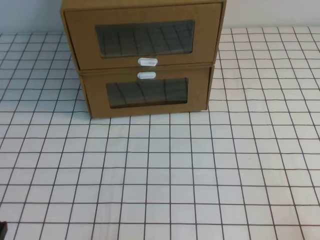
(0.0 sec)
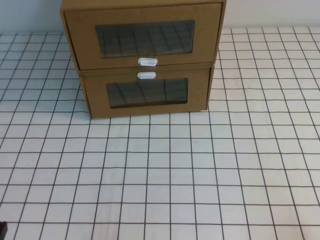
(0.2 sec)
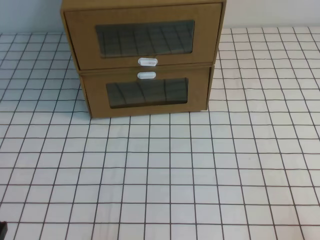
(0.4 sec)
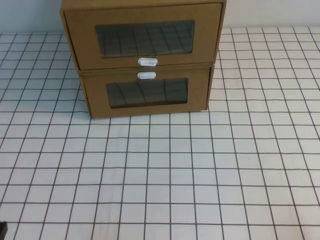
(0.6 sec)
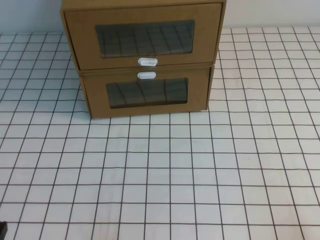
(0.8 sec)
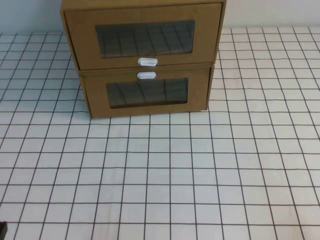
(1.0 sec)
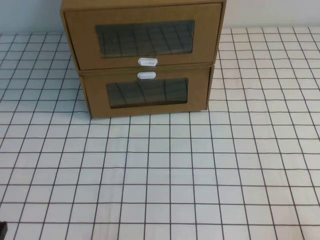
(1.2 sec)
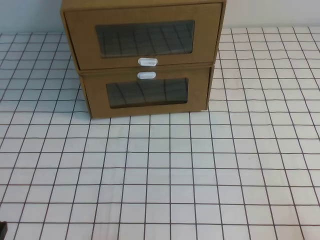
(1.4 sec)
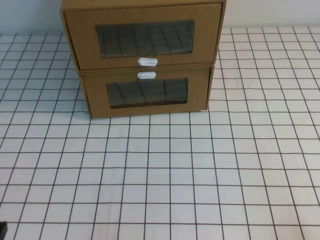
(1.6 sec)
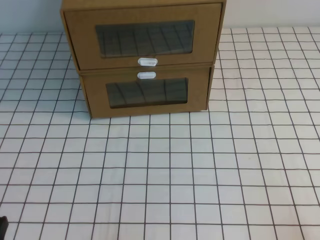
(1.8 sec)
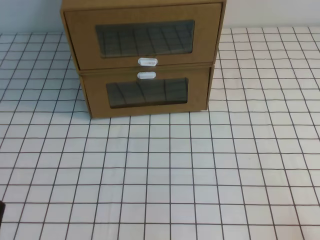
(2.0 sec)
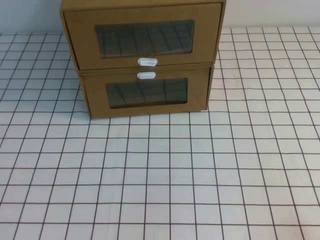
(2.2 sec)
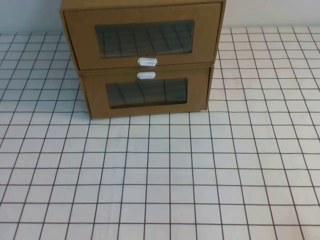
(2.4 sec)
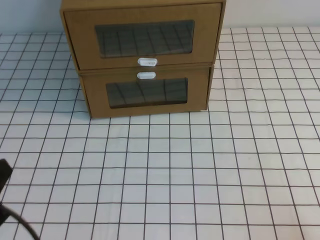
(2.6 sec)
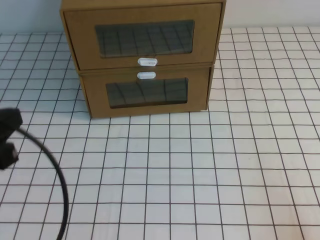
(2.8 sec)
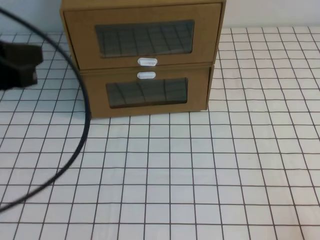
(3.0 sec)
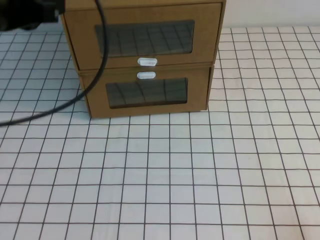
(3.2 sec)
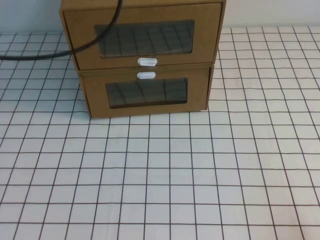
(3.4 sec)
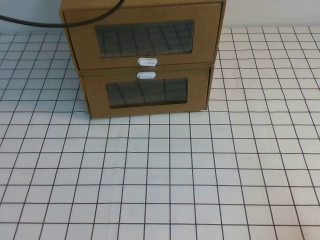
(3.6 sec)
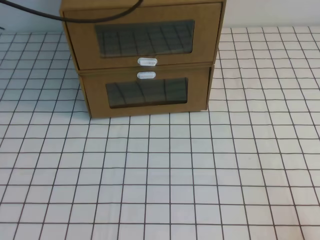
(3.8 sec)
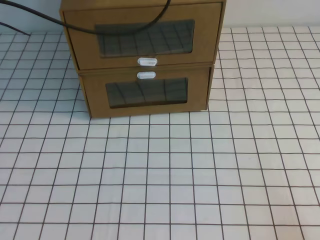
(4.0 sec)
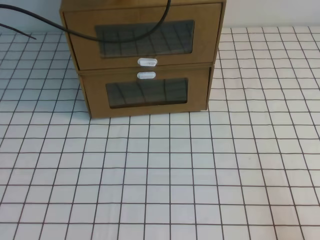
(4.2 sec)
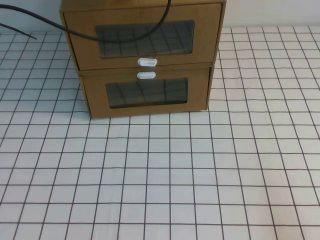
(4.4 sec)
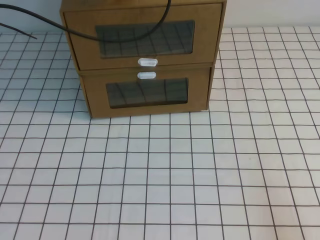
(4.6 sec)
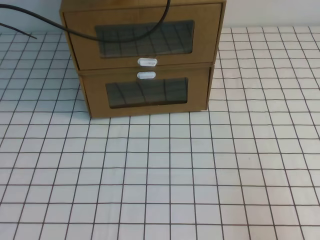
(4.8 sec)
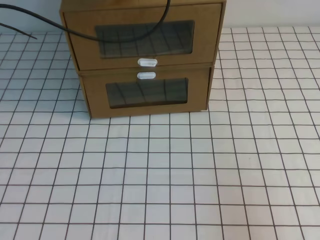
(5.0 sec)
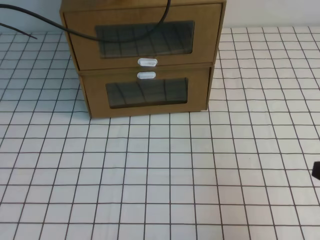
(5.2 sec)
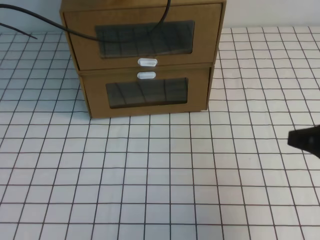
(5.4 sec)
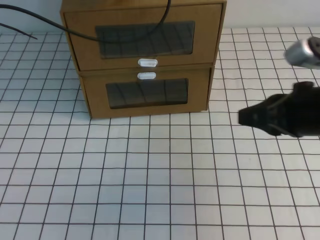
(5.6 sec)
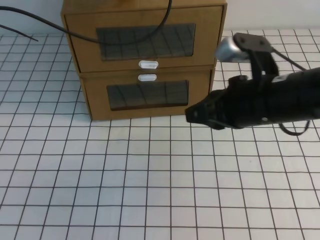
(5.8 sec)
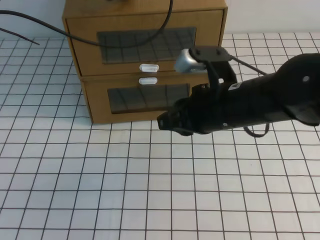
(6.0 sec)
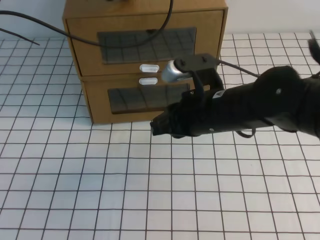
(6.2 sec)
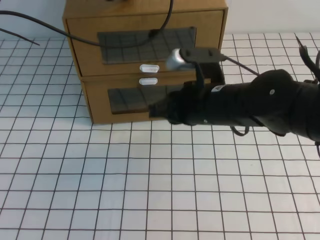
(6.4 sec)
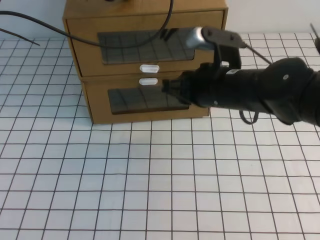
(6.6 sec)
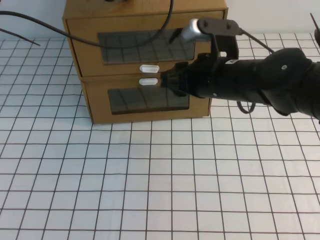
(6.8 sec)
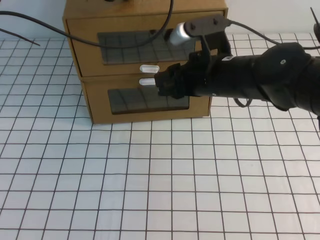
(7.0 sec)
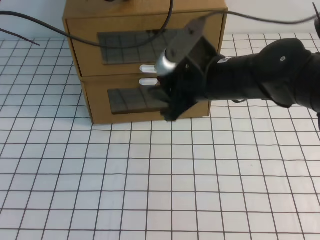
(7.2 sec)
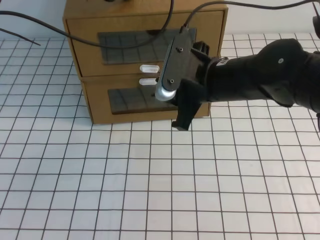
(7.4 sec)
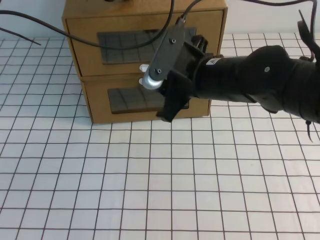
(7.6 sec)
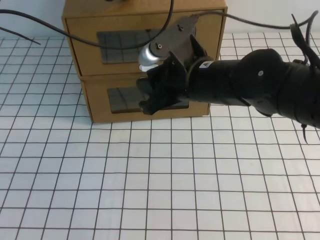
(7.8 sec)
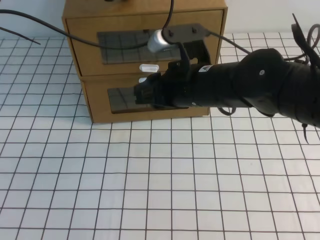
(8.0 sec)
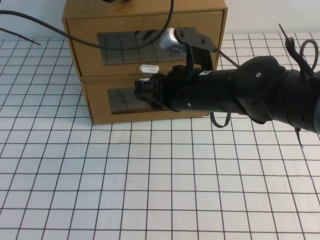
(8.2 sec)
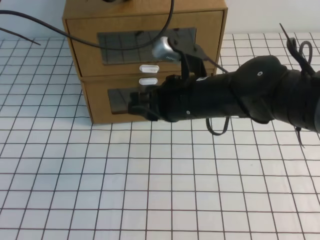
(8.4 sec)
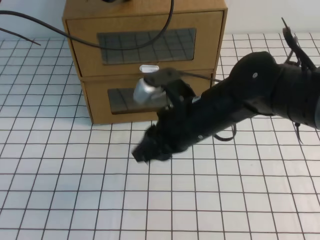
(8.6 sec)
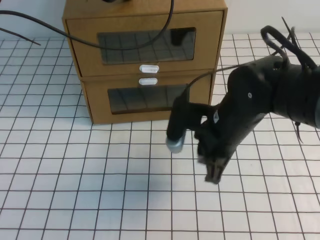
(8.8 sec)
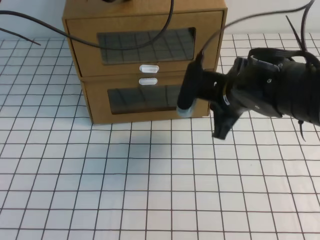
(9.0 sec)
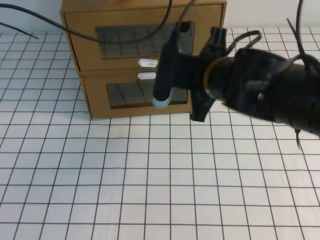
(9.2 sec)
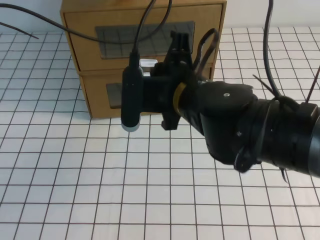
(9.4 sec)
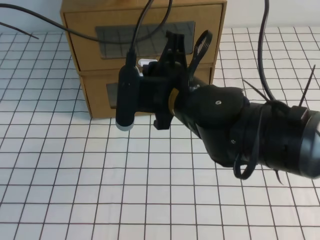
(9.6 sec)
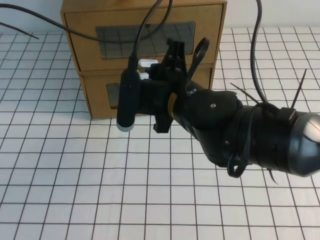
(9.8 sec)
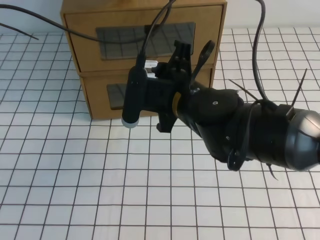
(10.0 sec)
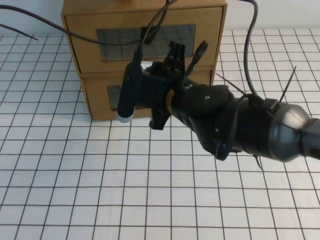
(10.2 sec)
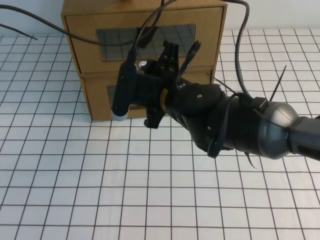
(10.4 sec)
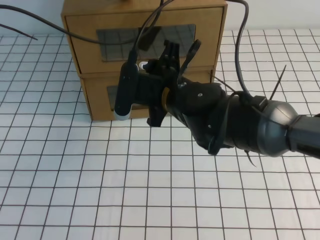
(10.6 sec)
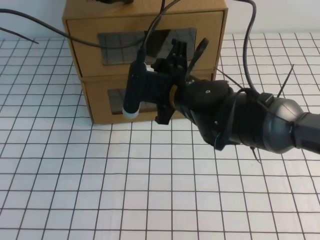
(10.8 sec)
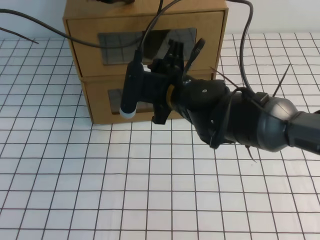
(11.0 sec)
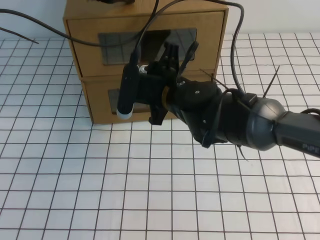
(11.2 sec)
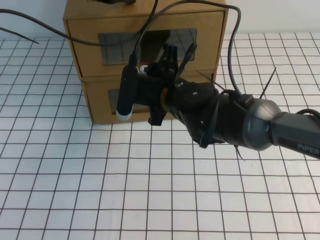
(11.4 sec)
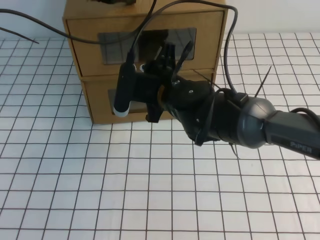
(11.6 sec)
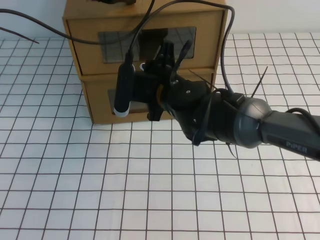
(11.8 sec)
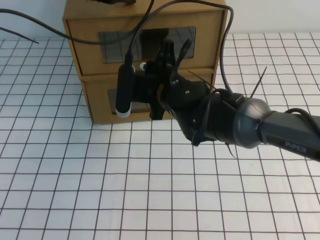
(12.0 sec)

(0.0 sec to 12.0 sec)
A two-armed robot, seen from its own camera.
Task of the whole recording: open the shoebox on the white tablecloth.
0.0 sec - 1.6 sec: Neither gripper changes place.
1.6 sec - 3.0 sec: The left gripper shifts some 25 cm upward and forward.
3.0 sec - 4.4 sec: The left gripper goes roughly 25 cm forward.
4.4 sec - 6.0 sec: The right gripper is displaced forward, to the left and upward by approximately 30 cm.
6.0 sec - 7.6 sec: The right gripper moves roughly 5 cm, and opens.
7.6 sec - 9.0 sec: The right gripper closes.
9.0 sec - 10.4 sec: The right gripper shifts roughly 10 cm to the left, and opens its fingers.
10.4 sec - 12.0 sec: The right gripper closes.

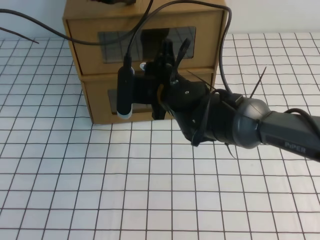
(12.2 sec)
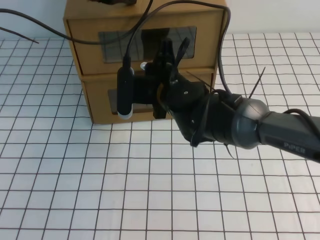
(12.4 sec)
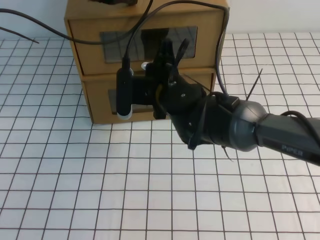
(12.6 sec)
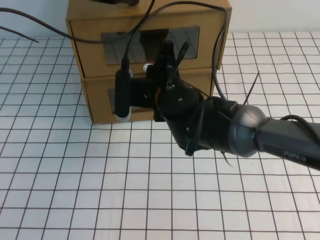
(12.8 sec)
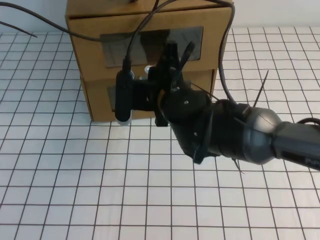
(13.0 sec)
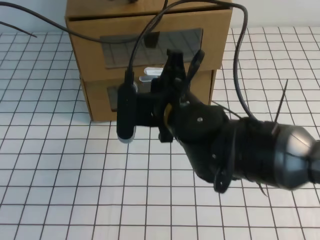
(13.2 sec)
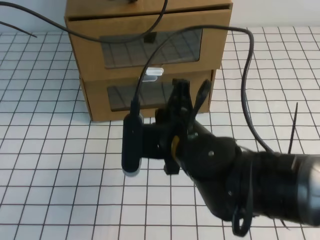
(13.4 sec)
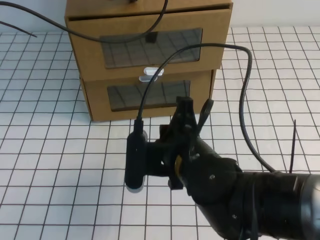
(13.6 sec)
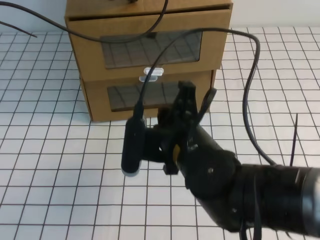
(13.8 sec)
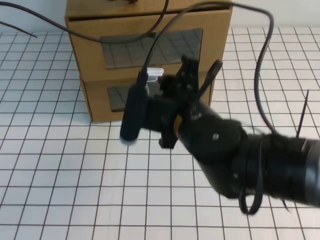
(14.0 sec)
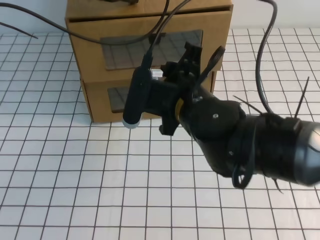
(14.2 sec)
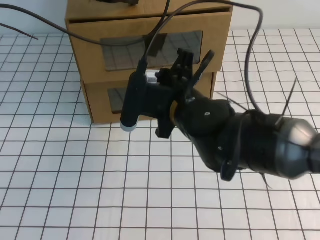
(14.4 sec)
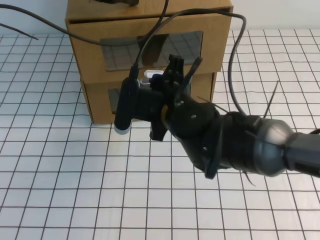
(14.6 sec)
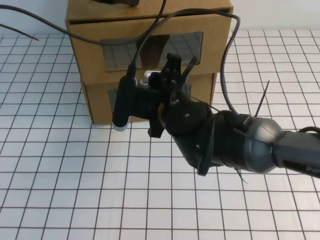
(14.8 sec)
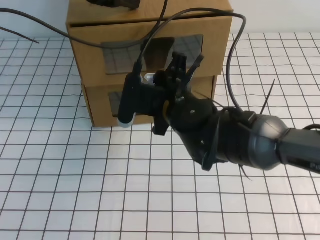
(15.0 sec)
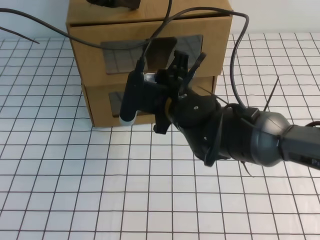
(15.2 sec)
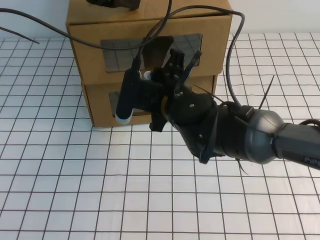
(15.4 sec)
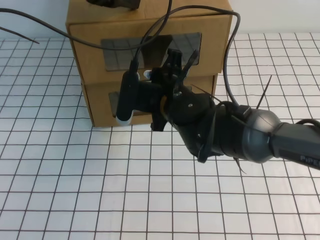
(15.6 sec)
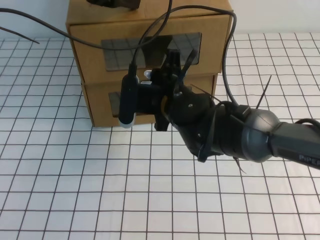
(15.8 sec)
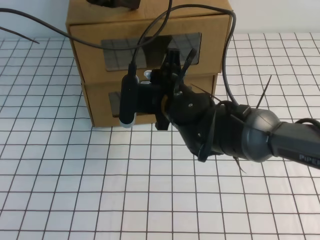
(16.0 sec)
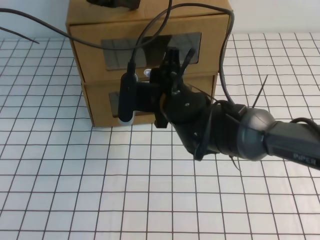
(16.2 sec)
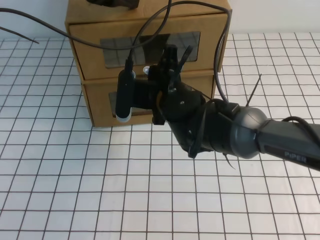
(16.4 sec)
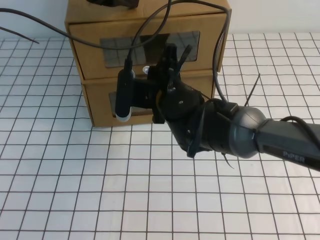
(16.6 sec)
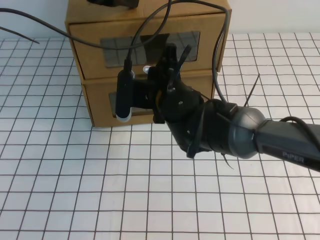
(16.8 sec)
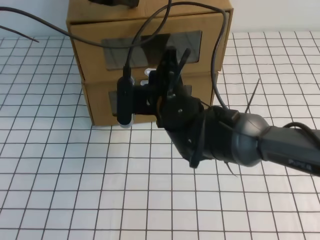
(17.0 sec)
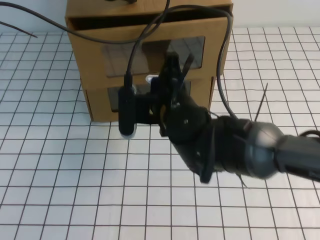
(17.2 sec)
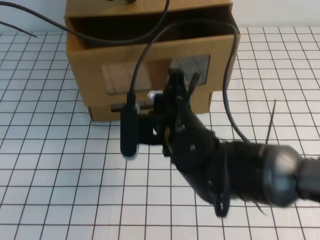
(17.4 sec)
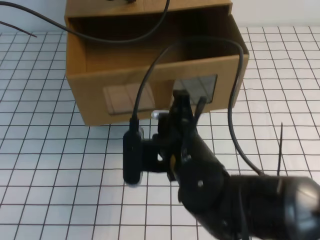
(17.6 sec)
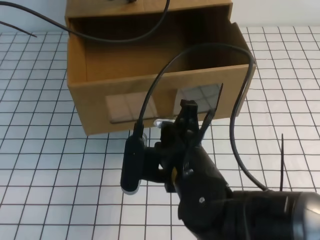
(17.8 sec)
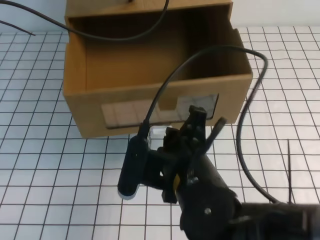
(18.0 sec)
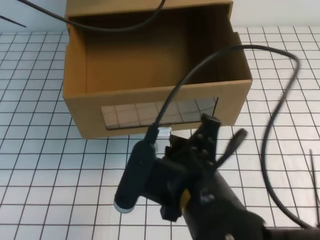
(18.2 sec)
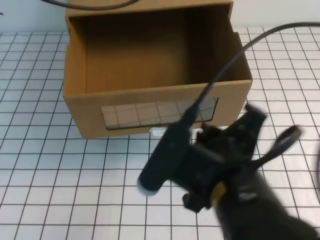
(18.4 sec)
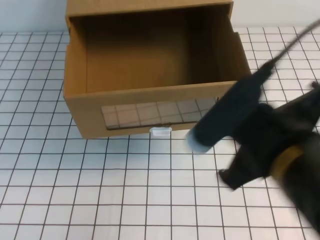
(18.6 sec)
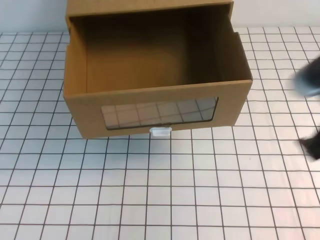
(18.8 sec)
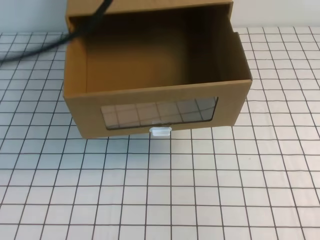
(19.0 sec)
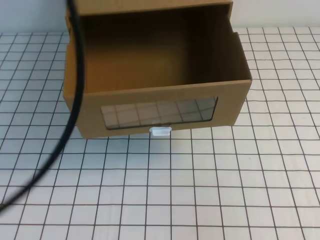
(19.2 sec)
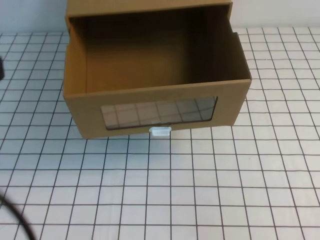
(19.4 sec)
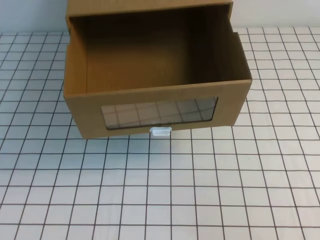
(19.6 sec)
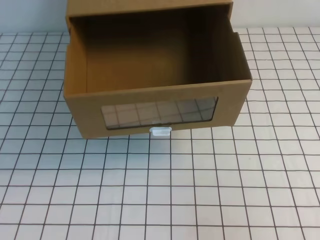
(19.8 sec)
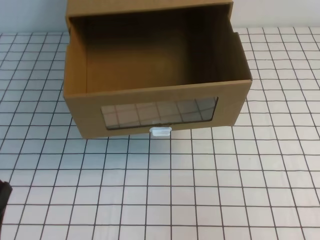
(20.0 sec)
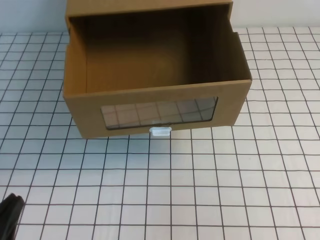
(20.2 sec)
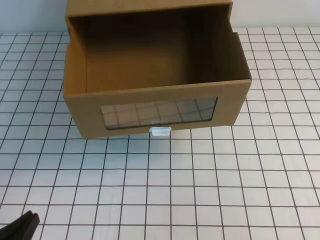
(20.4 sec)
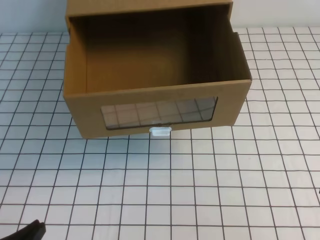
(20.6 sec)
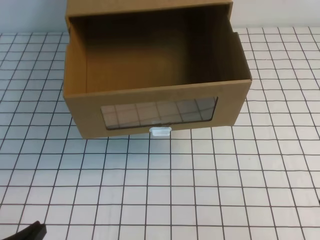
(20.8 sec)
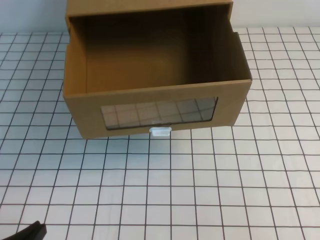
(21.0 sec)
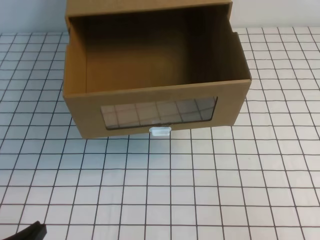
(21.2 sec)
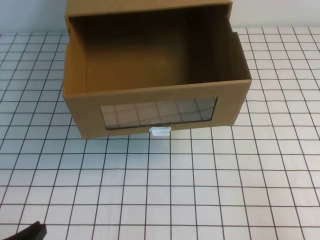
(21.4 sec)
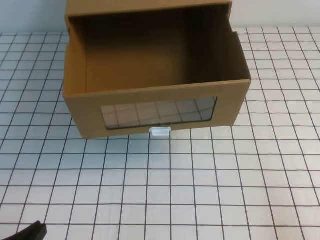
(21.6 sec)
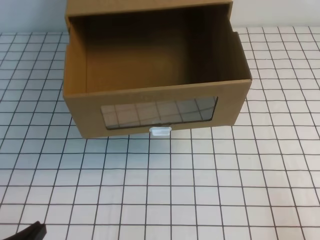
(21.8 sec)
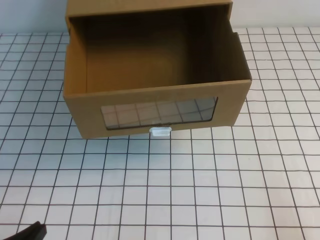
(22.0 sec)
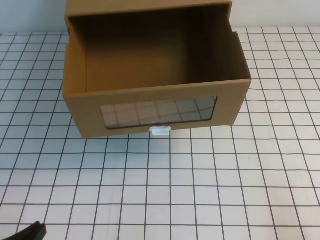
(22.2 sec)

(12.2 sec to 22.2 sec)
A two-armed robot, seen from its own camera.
Task of the whole recording: open the shoebox on the white tablecloth.
12.2 sec - 13.6 sec: The right gripper moves backward, about 15 cm, and closes.
13.6 sec - 15.0 sec: The right gripper heads forward, covering about 10 cm, and opens.
15.0 sec - 16.4 sec: The right gripper closes.
16.4 sec - 18.0 sec: The right gripper shifts about 15 cm backward.
18.0 sec - 19.4 sec: The left gripper heads backward, covering about 35 cm; the right gripper travels to the right, backward and upward by roughly 35 cm.
19.4 sec - 20.8 sec: The left gripper moves downward, approximately 30 cm.
20.8 sec - 22.2 sec: The right gripper travels downward and to the right by some 10 cm.
